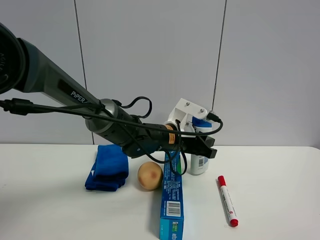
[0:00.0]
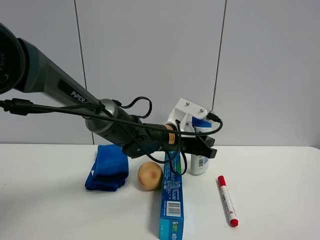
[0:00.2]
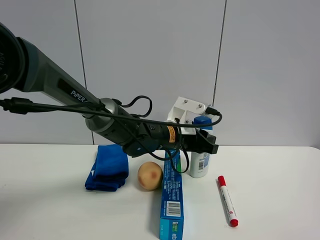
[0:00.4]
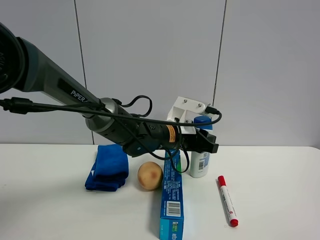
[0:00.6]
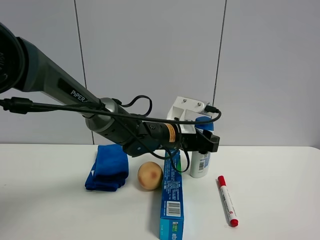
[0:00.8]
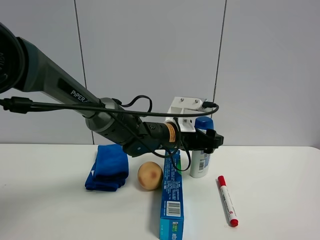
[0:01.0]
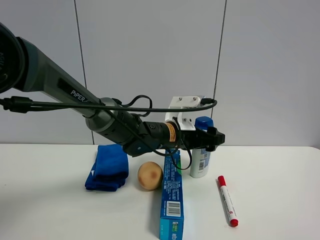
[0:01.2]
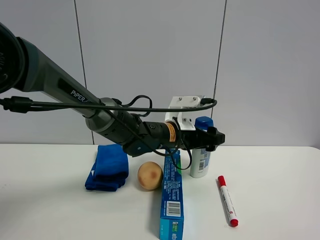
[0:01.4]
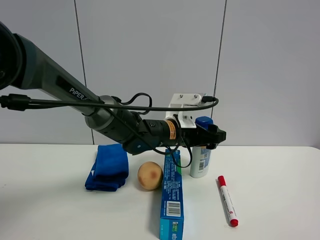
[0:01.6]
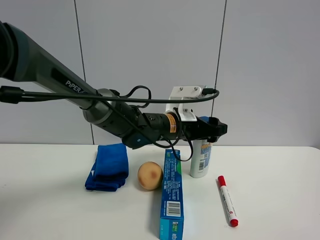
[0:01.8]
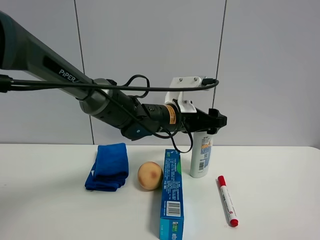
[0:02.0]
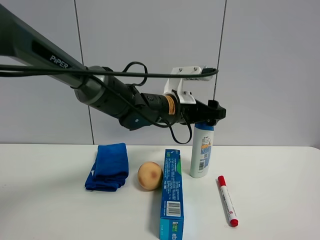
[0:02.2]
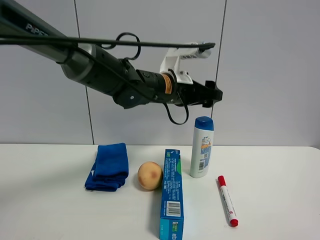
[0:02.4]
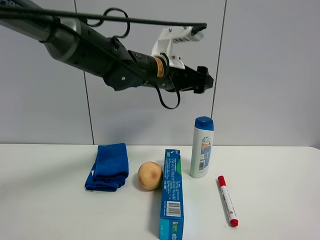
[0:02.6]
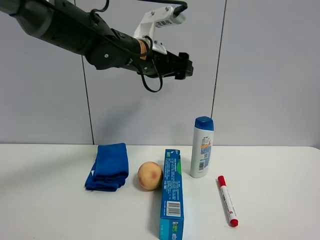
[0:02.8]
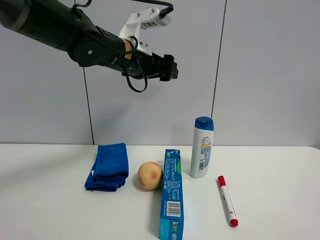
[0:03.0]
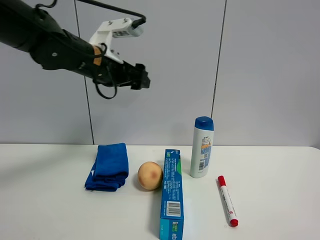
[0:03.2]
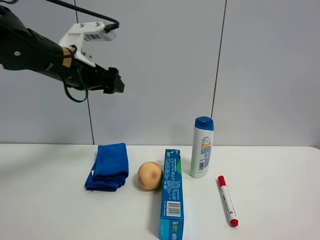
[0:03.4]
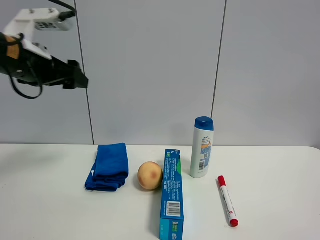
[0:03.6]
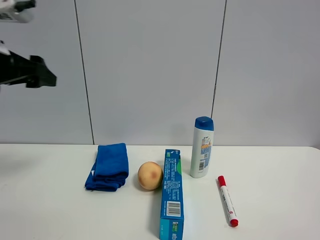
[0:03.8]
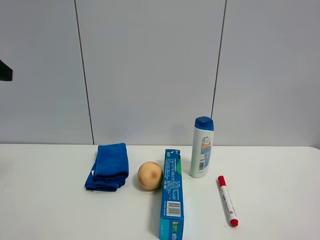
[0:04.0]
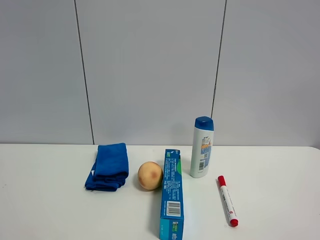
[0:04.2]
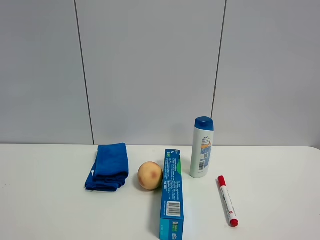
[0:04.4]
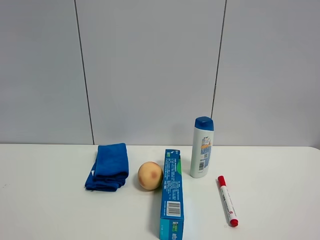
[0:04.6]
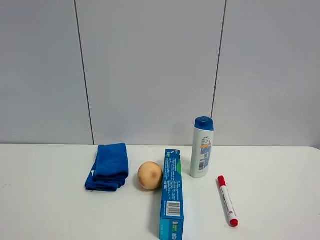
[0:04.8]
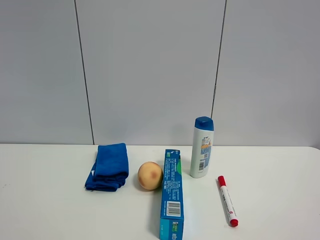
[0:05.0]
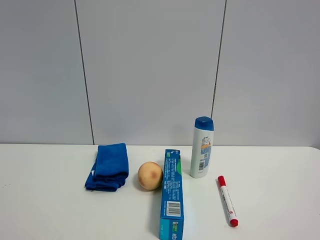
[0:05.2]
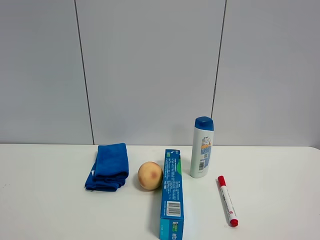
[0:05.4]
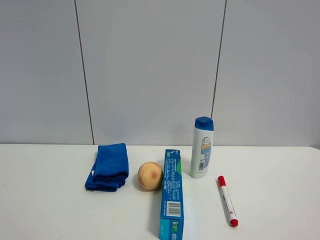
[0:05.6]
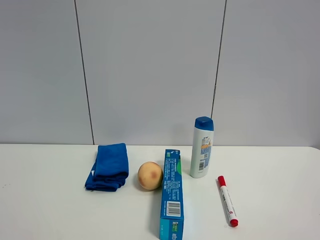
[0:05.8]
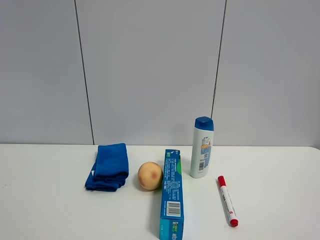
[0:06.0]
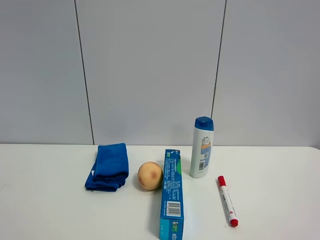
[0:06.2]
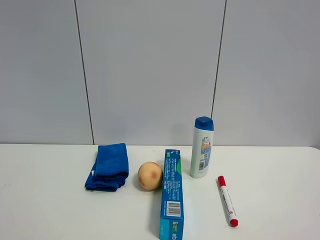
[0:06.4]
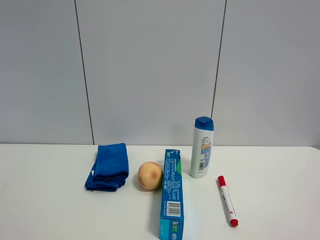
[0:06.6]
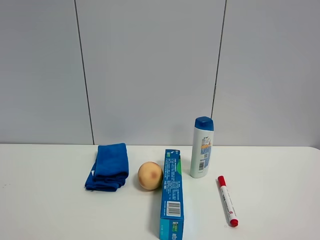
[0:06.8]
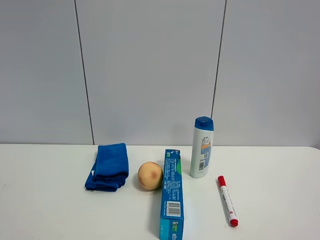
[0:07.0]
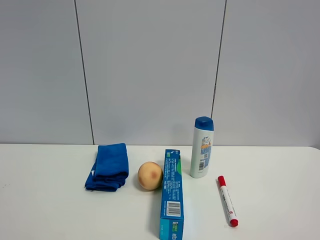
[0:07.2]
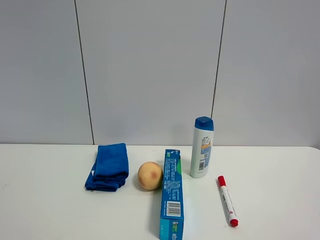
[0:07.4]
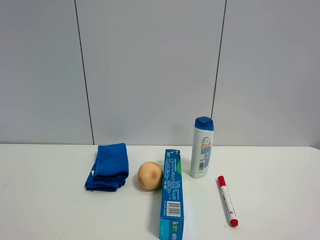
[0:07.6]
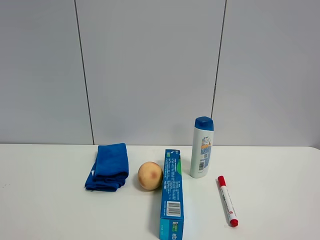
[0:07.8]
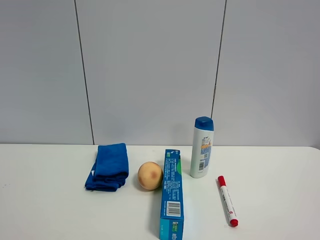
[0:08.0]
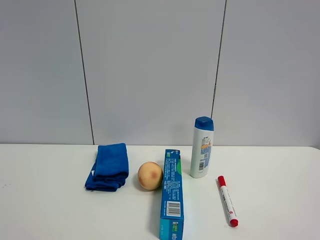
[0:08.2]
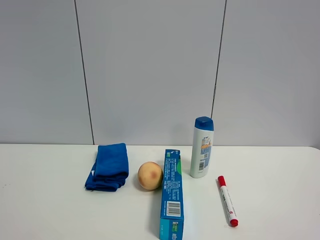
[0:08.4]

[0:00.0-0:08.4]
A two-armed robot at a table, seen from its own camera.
Task of the whole recording: the gripper move the object.
0:00.0 to 0:01.4: The left gripper opens.
0:01.4 to 0:02.8: The left gripper heads upward and to the left, covering about 20 cm.
0:02.8 to 0:04.2: The left gripper heads to the left and backward, covering approximately 35 cm.
0:07.0 to 0:08.4: The two grippers keep their place.

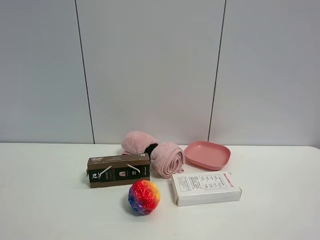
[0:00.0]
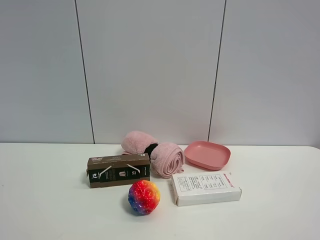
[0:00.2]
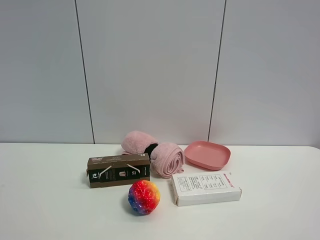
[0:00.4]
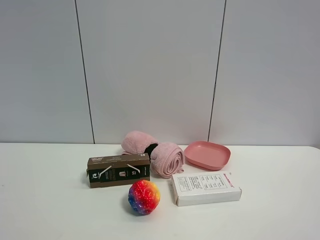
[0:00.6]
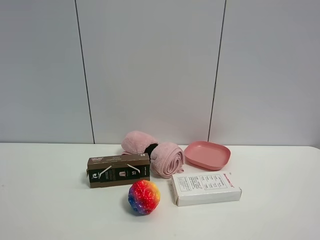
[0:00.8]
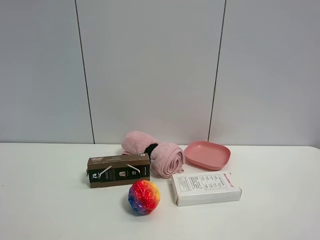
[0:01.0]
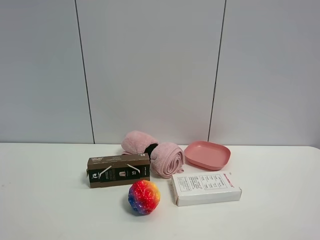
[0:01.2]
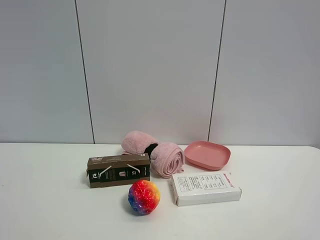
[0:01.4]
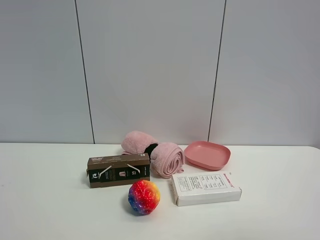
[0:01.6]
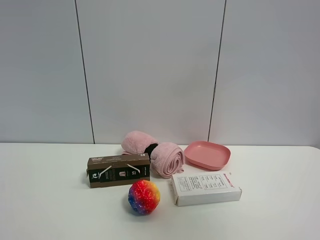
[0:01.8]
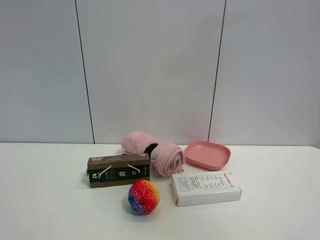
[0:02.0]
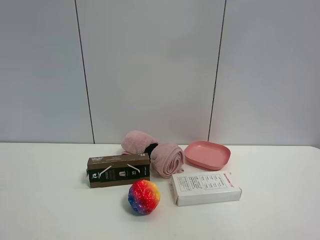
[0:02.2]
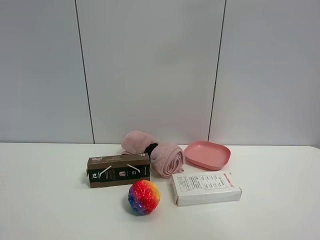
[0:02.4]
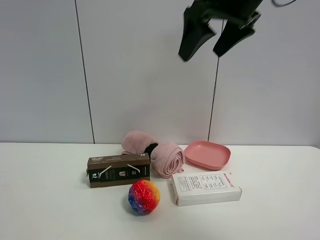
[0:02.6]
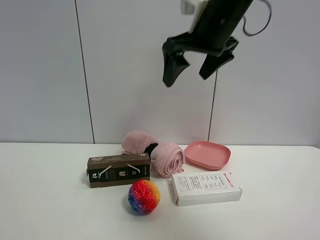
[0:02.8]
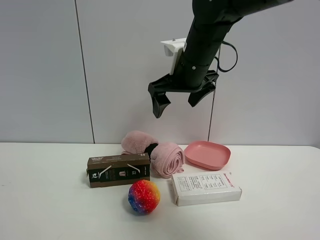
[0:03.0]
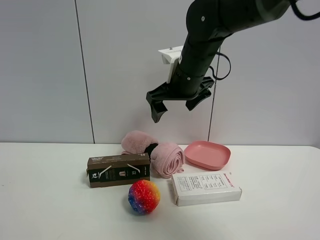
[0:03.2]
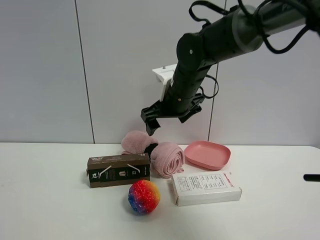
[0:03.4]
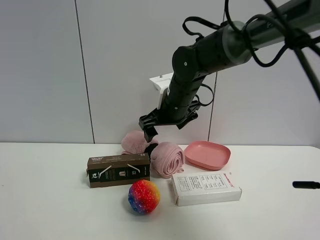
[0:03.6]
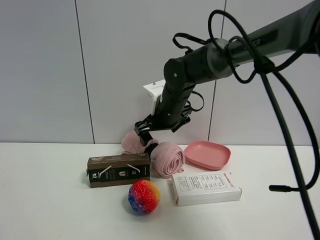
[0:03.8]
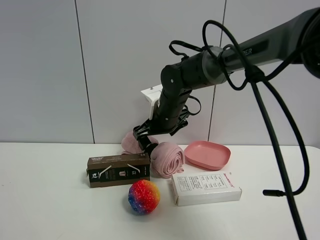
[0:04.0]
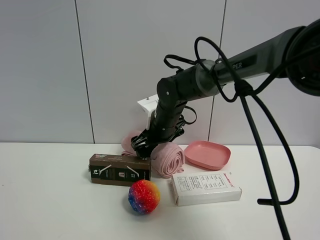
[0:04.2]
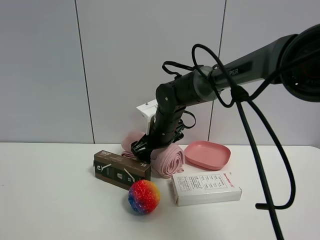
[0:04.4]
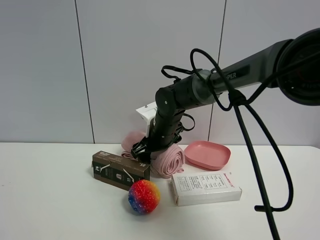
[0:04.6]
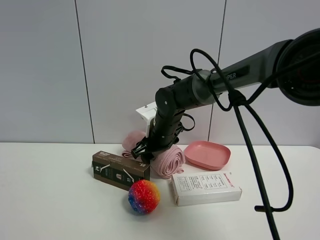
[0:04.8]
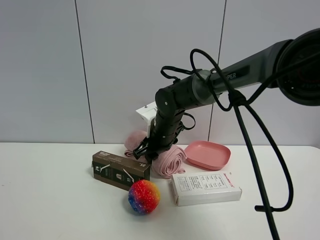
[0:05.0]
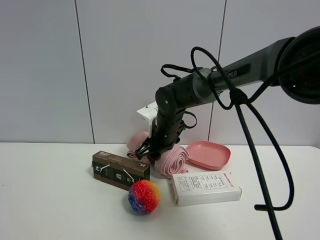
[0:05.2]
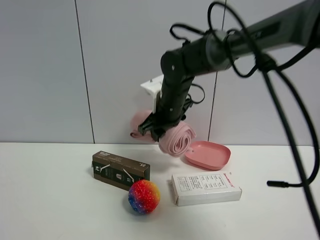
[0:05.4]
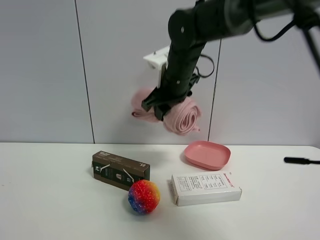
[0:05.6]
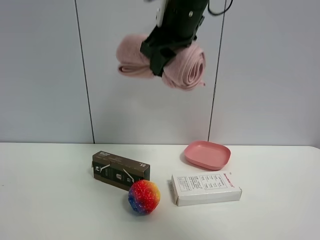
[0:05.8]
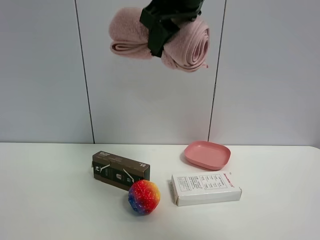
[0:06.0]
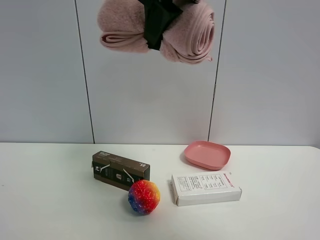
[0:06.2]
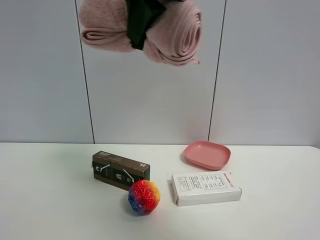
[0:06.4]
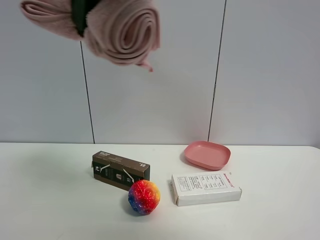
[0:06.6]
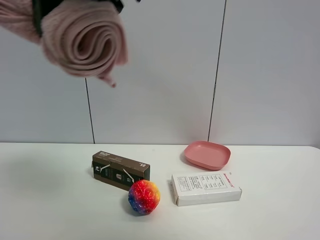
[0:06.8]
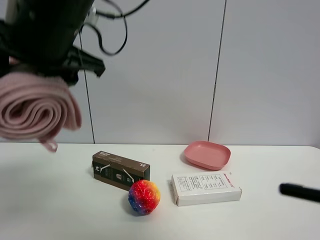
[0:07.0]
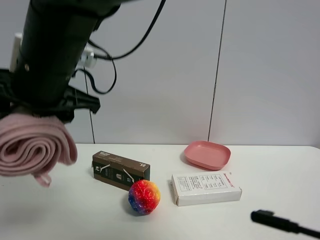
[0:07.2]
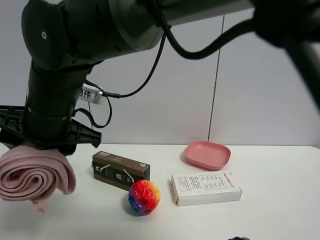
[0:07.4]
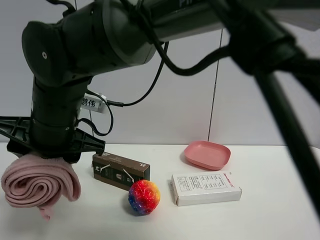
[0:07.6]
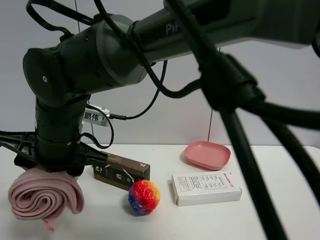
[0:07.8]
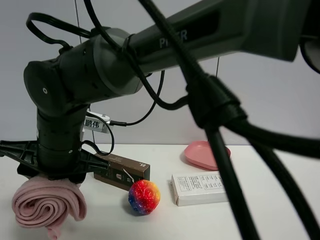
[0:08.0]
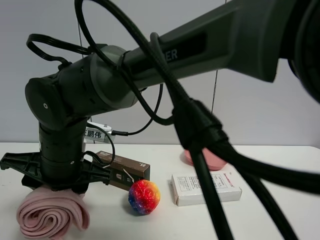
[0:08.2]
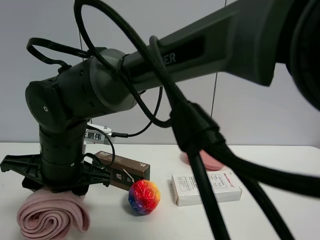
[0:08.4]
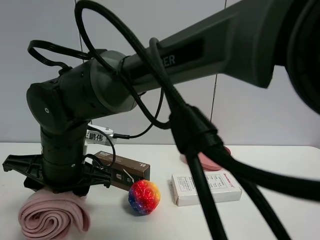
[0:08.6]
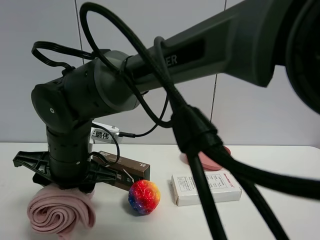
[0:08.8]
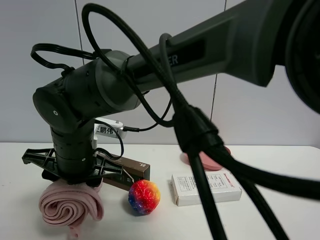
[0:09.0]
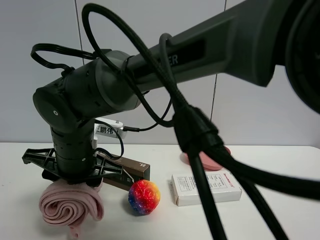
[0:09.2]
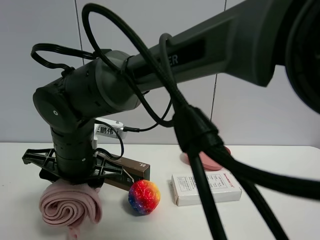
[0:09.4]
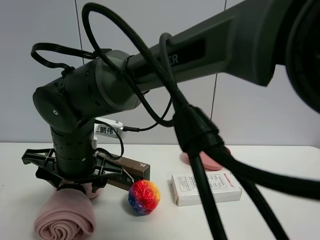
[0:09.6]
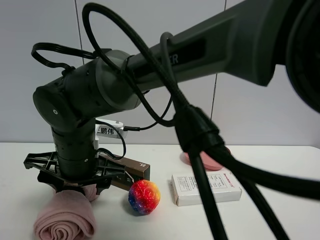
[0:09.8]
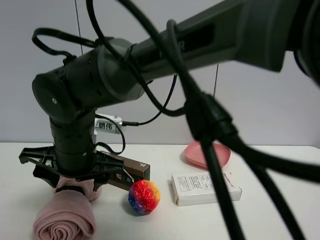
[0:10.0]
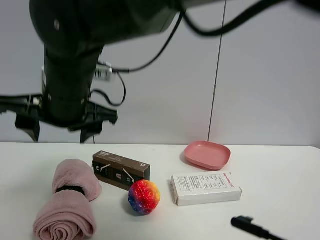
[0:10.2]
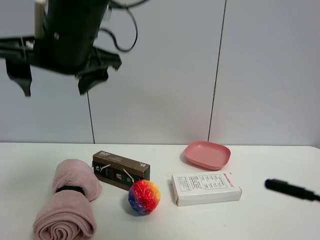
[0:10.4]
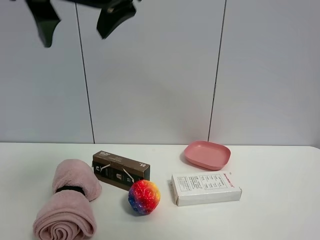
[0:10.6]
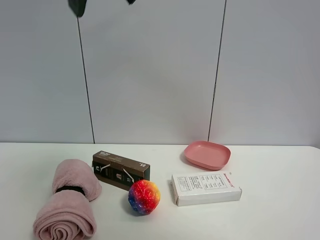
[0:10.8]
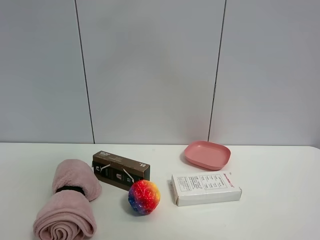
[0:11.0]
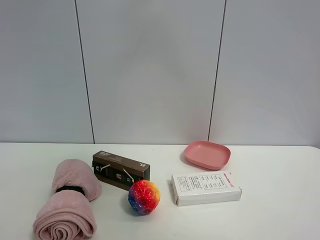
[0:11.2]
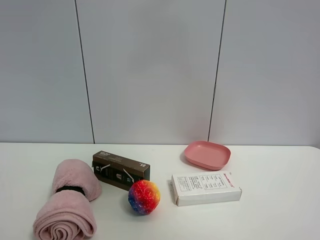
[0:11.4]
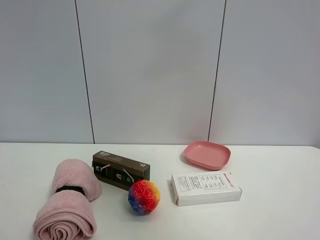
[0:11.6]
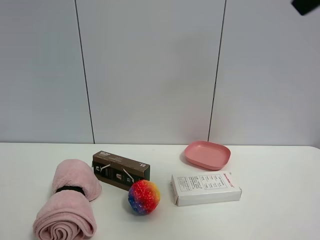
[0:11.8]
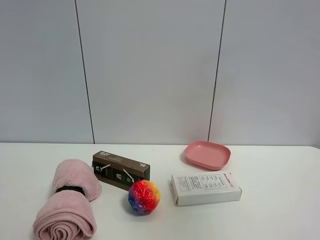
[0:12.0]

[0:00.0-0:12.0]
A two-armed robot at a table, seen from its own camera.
Task of the whole recording: the gripper move the object.
Step, 0:00.0 to 0:05.0: Grasp the pink towel with the right gripper.
Step, 0:05.2 to 0:09.8: Place the pink towel on the table with the right gripper.
0:01.6 to 0:03.0: The right gripper is displaced forward and to the left by some 40 cm.
0:03.0 to 0:04.4: The right gripper is displaced downward by some 15 cm.
0:04.4 to 0:06.0: The right gripper goes some 30 cm upward and backward, and closes up.
0:06.0 to 0:07.6: The right gripper is displaced downward and to the left by some 30 cm.
0:07.6 to 0:09.0: The right gripper moves downward, about 5 cm.
0:09.0 to 0:10.4: The right gripper shifts approximately 20 cm upward, and opens up.
0:10.4 to 0:12.0: The right gripper moves to the right, approximately 35 cm.

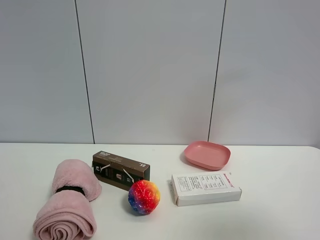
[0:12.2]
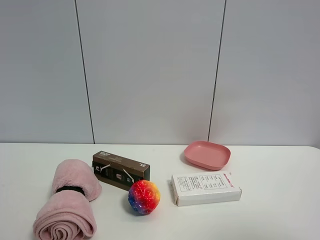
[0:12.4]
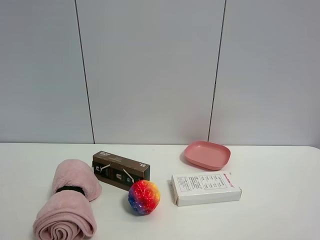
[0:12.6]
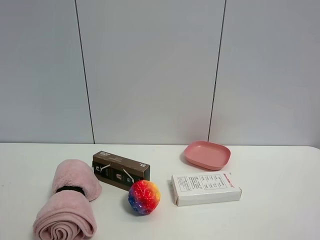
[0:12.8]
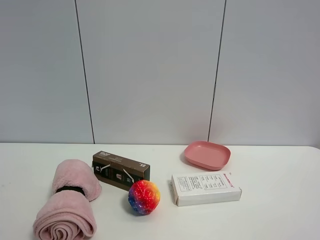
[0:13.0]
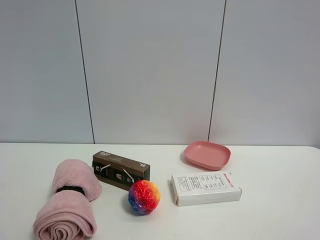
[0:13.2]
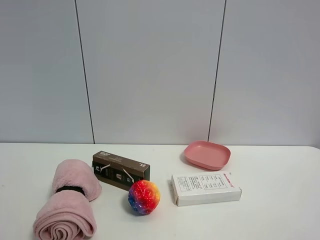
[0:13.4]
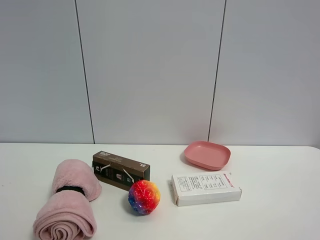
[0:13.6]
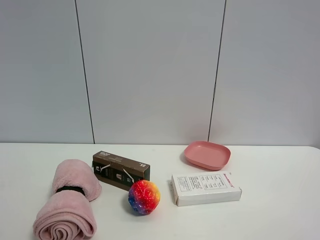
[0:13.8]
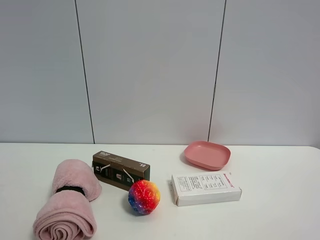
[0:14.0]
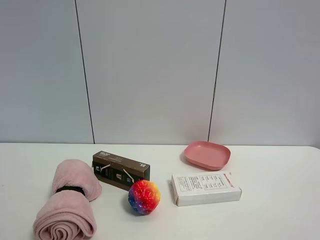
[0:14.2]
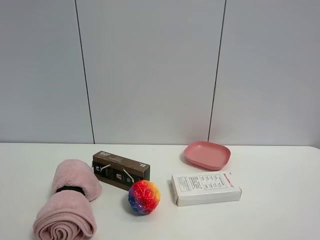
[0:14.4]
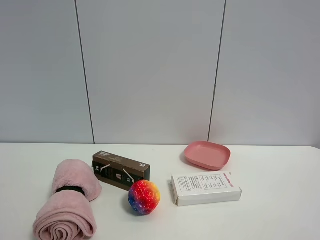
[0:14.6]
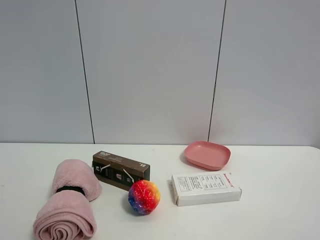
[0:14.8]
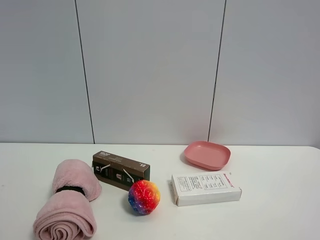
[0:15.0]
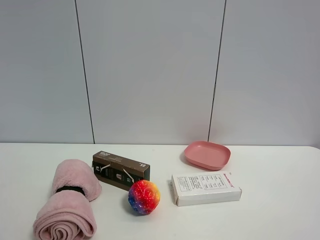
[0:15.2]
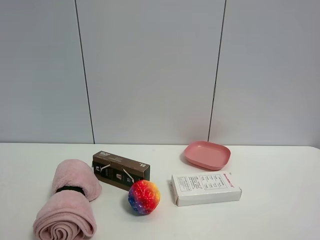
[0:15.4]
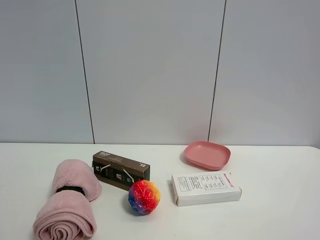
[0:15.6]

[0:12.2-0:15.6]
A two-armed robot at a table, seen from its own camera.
Task of the whole recording: the gripper move the object.
0:12.2 to 0:13.8: The right gripper is displaced downward and backward by approximately 15 cm.
0:13.8 to 0:15.6: The two grippers keep their place.
